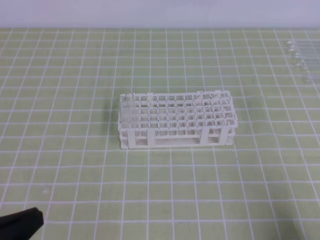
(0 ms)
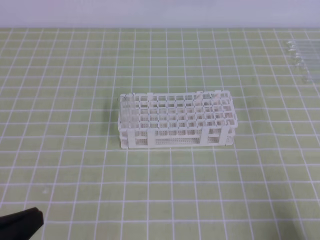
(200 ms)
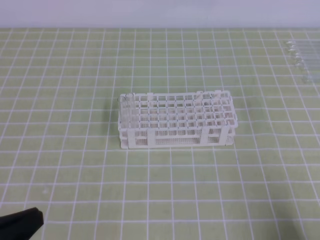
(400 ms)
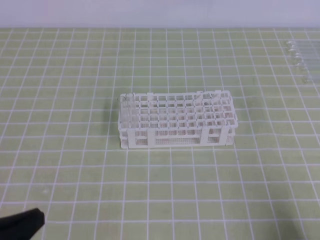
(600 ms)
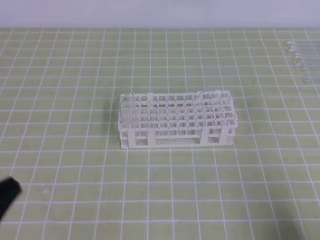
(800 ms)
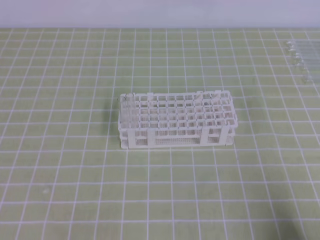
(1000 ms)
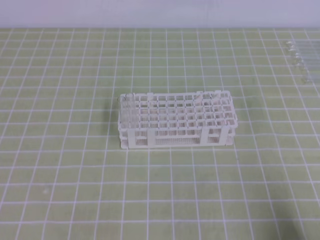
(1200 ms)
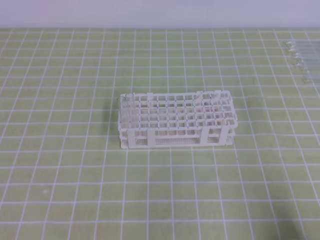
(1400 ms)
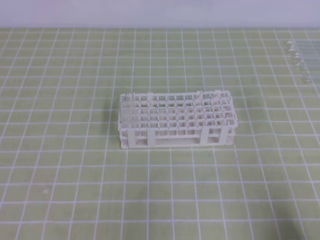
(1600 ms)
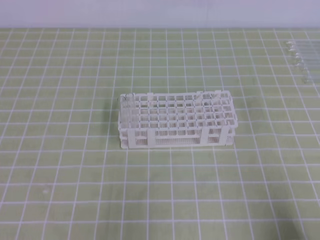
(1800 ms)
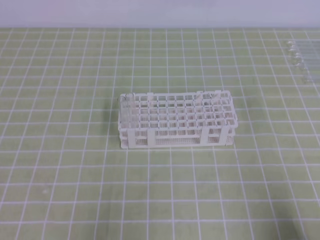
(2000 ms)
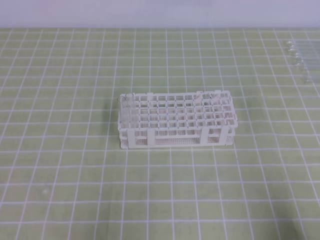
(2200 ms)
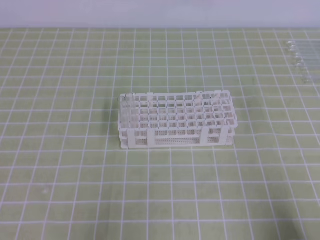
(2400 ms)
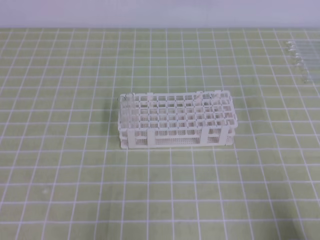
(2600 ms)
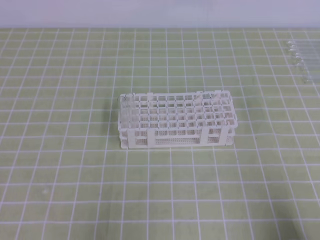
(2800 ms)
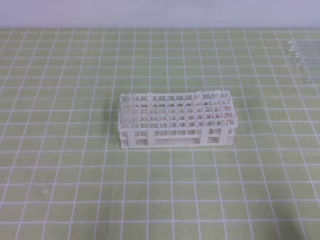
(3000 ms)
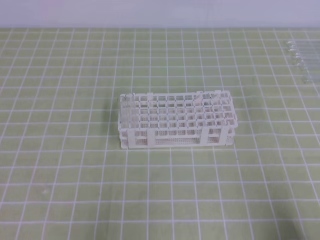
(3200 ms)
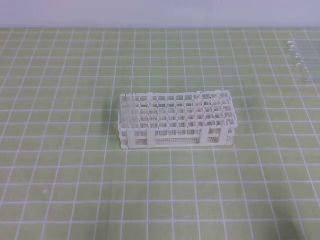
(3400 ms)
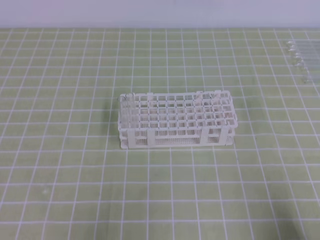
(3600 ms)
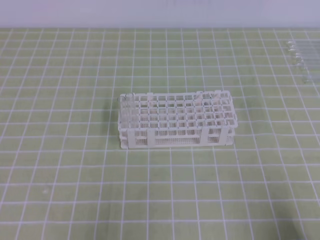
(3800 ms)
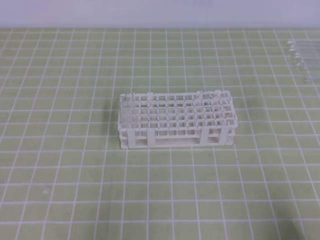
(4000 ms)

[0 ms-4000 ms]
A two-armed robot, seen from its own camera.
2600 ms to 4000 ms: Neither gripper changes place.

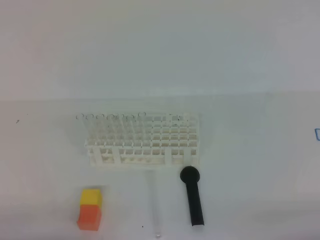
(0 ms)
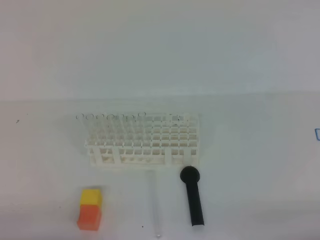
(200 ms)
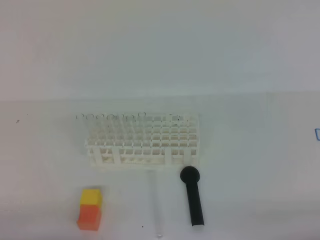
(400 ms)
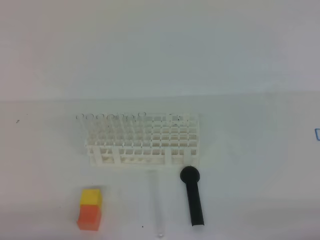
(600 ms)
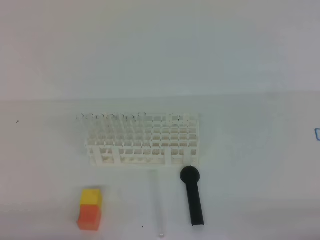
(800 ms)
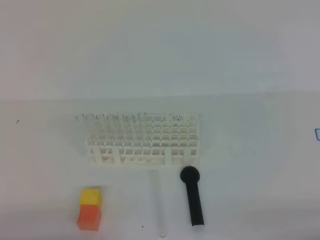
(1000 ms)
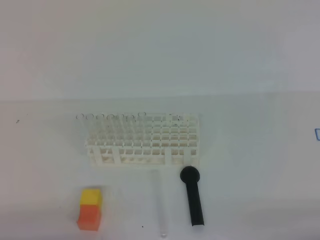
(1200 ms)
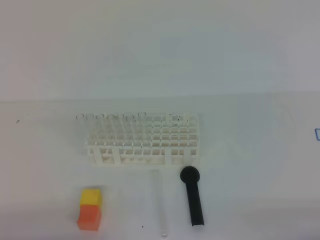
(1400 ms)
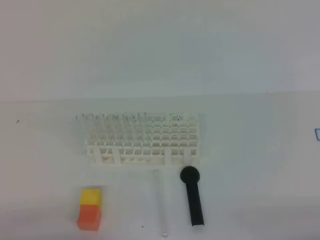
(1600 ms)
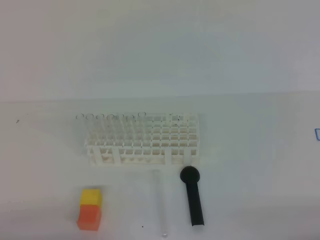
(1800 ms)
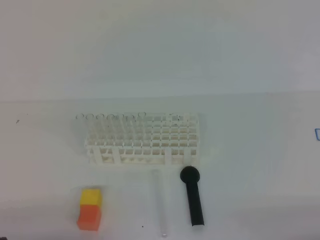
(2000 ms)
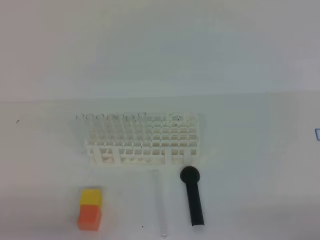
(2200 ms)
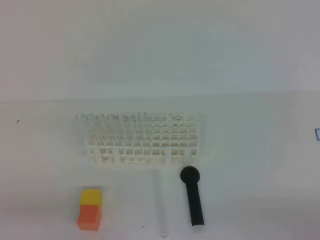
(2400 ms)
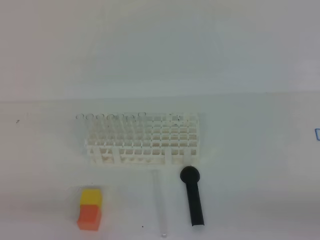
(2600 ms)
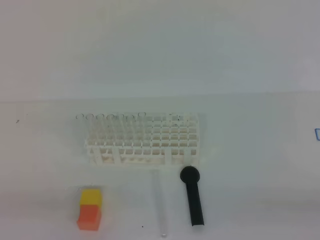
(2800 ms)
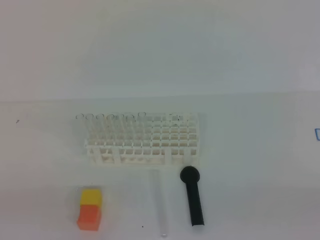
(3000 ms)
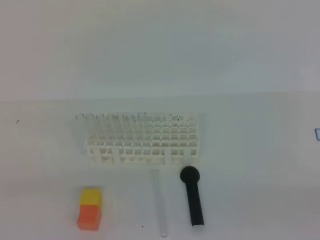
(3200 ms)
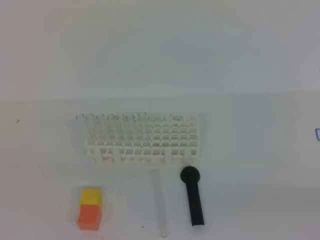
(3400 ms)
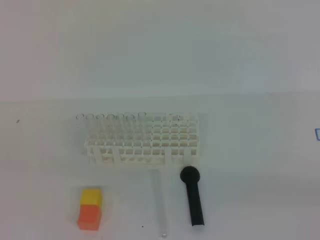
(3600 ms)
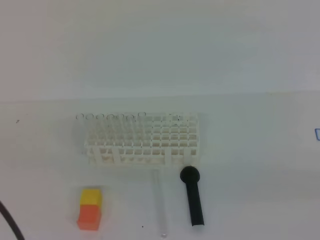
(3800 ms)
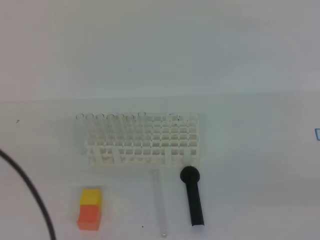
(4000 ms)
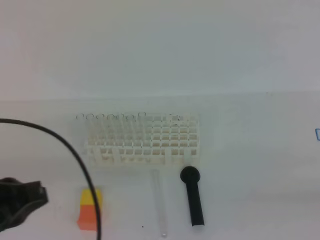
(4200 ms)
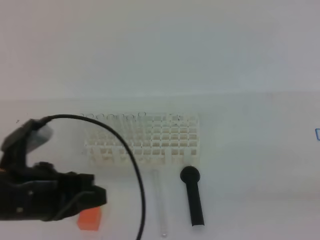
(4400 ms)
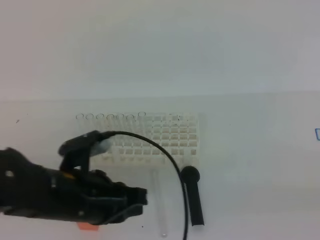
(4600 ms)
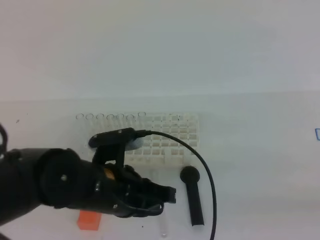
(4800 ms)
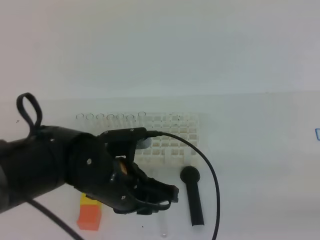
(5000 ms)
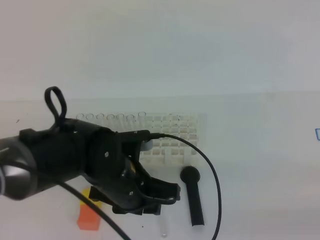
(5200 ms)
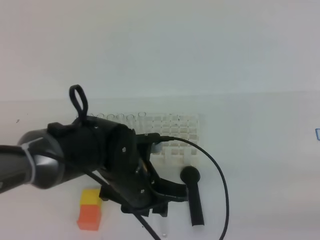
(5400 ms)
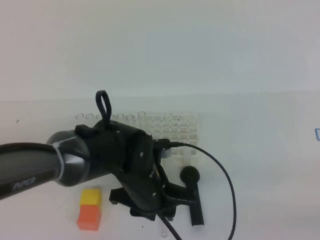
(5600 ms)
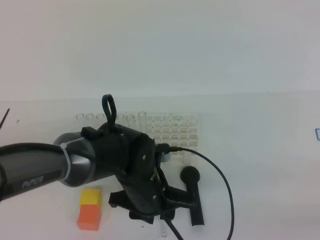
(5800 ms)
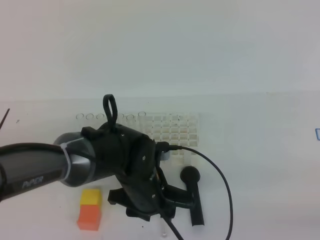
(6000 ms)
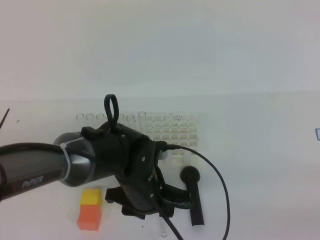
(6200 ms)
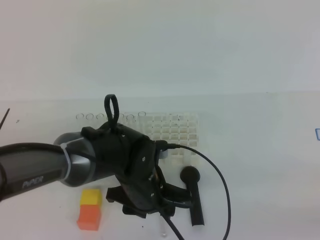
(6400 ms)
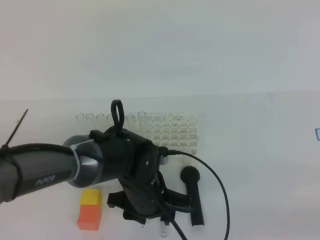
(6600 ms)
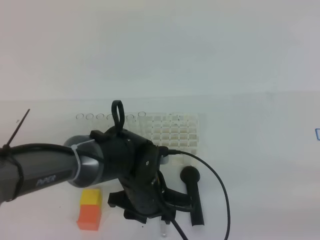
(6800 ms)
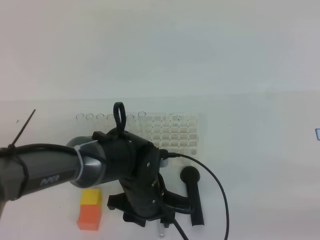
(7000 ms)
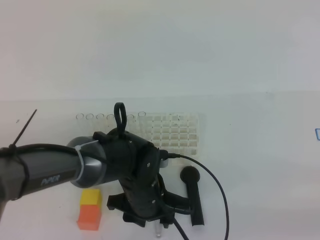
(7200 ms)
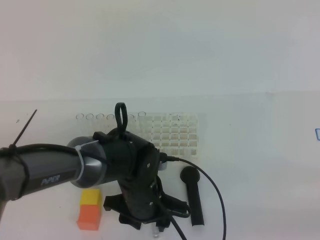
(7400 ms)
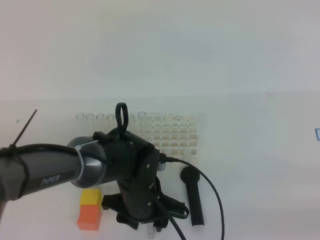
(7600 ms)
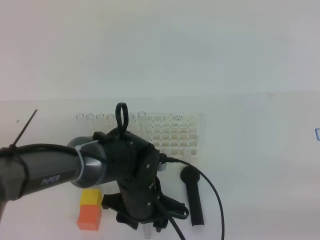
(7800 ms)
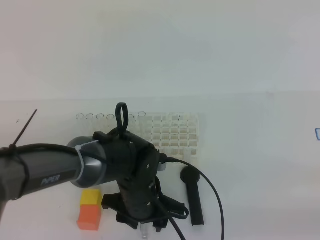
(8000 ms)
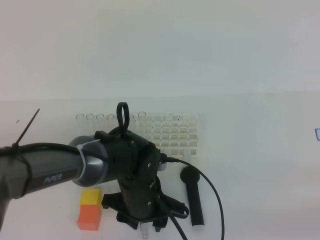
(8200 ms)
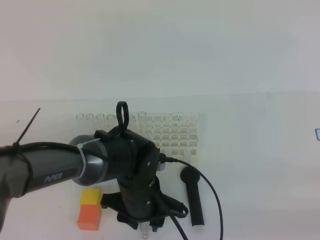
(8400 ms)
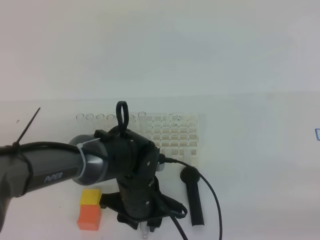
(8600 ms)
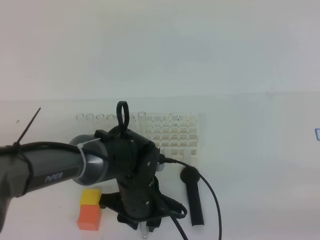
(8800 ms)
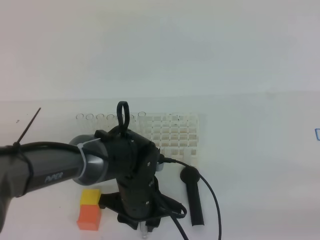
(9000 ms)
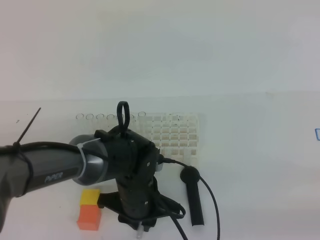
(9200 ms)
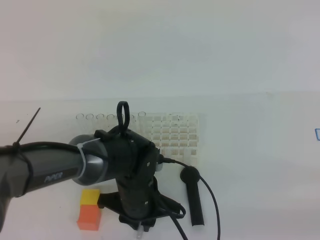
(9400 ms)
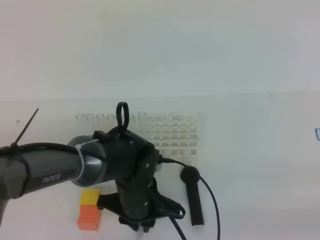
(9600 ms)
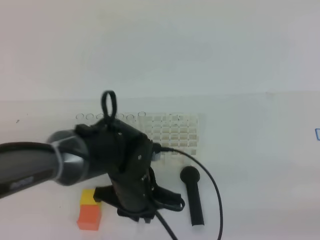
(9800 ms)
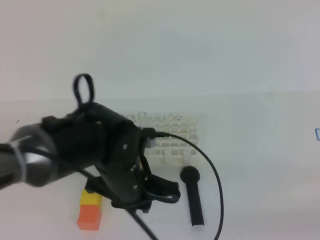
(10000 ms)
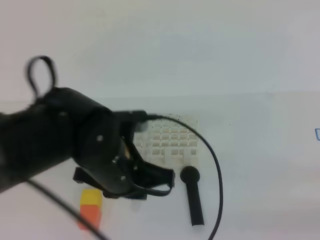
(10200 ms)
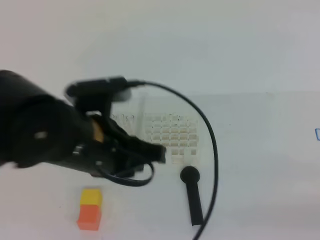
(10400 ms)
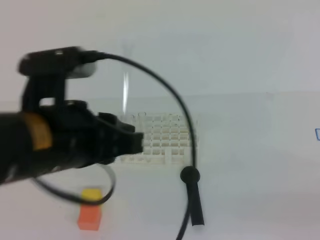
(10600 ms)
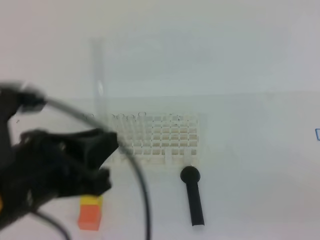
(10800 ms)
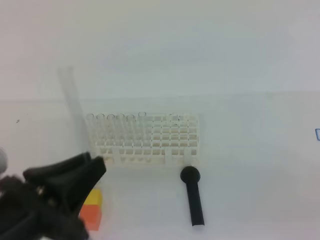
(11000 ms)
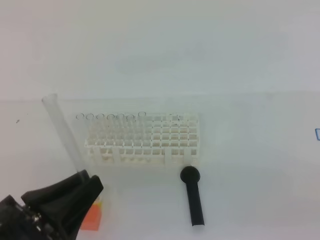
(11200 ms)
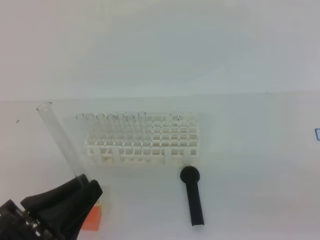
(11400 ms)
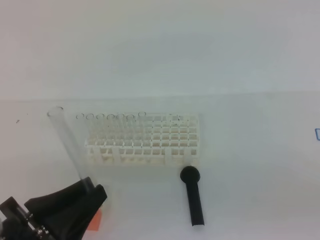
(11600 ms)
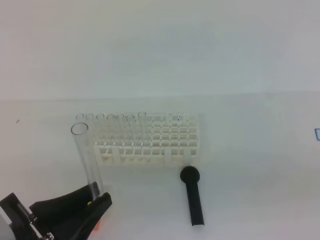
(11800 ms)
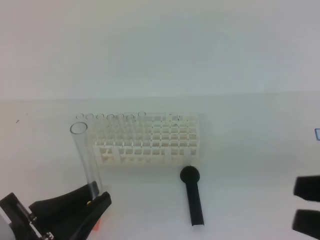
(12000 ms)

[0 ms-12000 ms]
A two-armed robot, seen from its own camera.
3000 ms to 4400 ms: The right gripper travels upward by some 5 cm. Meanwhile the left gripper heads forward and to the right, covering approximately 15 cm.
4400 ms to 6000 ms: The left gripper goes roughly 20 cm to the right, downward and forward, and opens its fingers; the right gripper opens up.
6000 ms to 7600 ms: The grippers move only a little.
7600 ms to 9000 ms: The left gripper closes up.
9000 ms to 10400 ms: The left gripper is displaced upward by roughly 20 cm, and closes.
10400 ms to 12000 ms: The right gripper goes approximately 10 cm to the left and upward, while the left gripper heads backward, to the left and downward, covering roughly 15 cm.

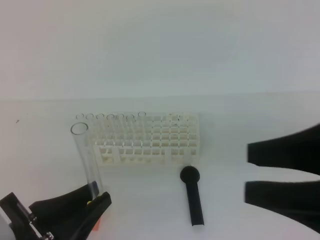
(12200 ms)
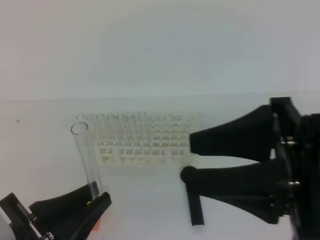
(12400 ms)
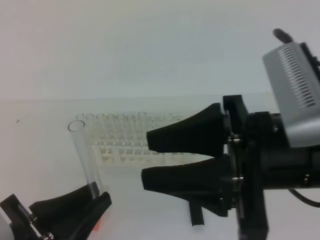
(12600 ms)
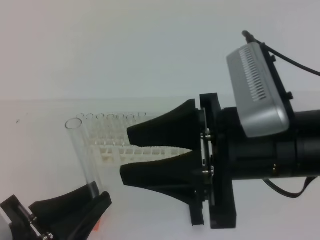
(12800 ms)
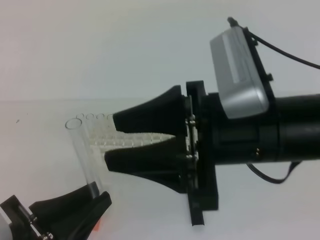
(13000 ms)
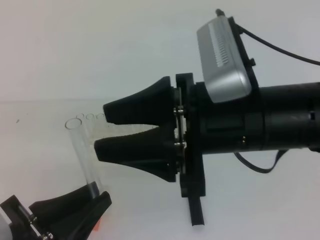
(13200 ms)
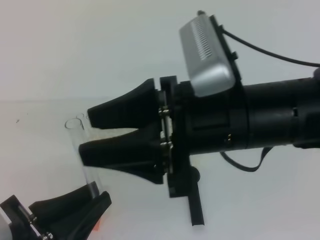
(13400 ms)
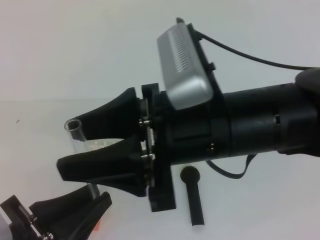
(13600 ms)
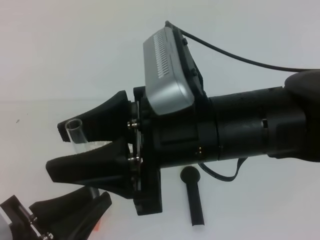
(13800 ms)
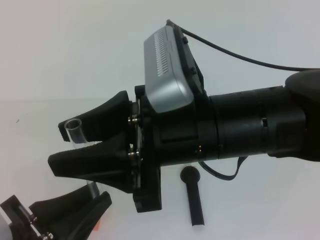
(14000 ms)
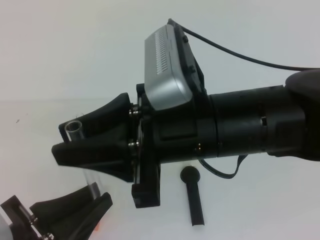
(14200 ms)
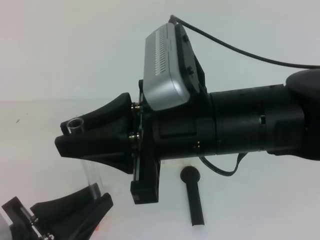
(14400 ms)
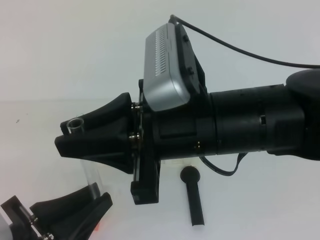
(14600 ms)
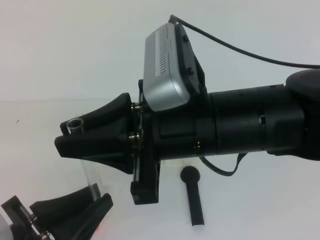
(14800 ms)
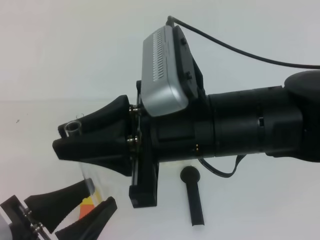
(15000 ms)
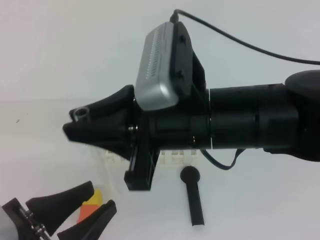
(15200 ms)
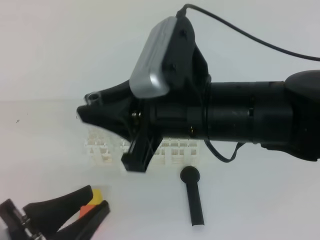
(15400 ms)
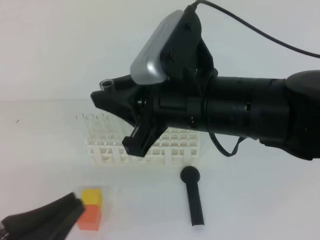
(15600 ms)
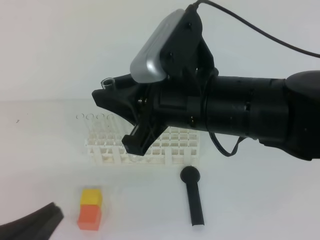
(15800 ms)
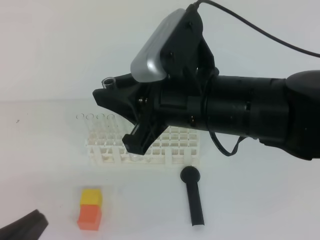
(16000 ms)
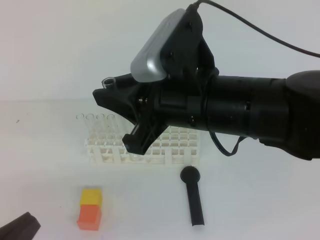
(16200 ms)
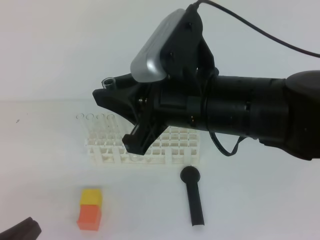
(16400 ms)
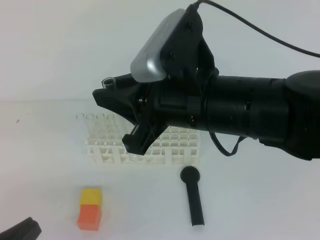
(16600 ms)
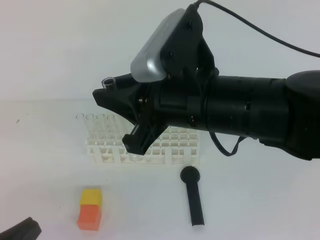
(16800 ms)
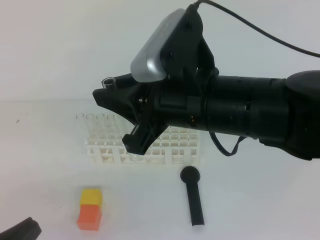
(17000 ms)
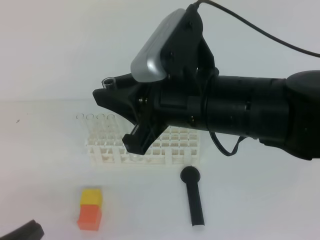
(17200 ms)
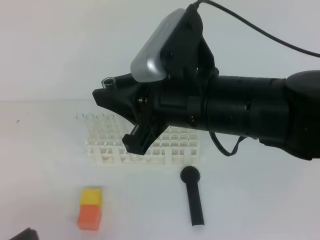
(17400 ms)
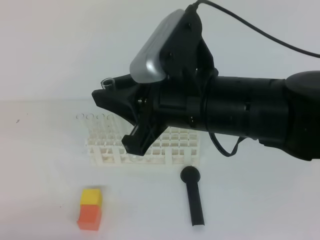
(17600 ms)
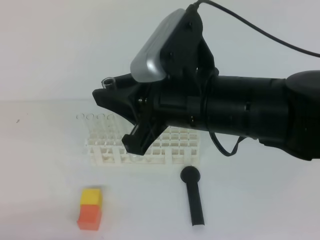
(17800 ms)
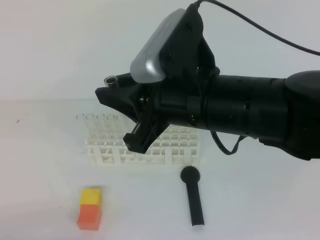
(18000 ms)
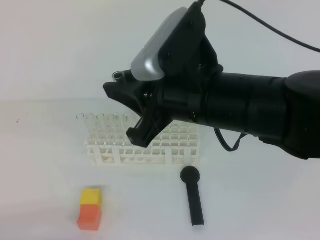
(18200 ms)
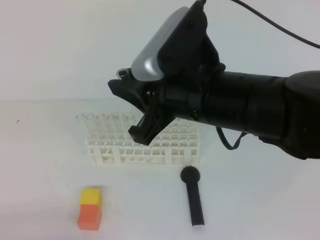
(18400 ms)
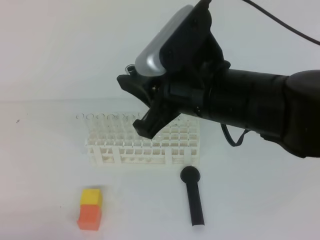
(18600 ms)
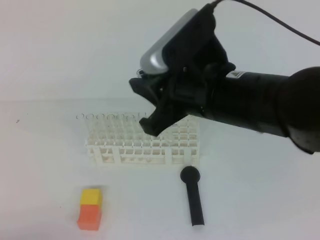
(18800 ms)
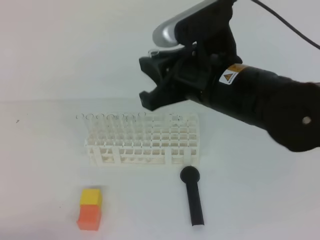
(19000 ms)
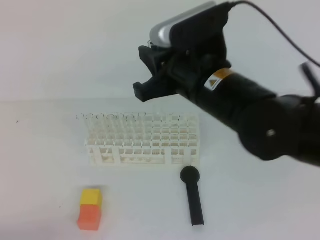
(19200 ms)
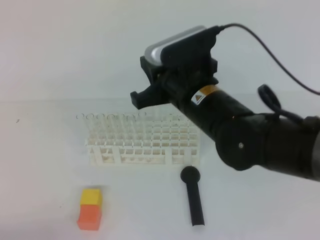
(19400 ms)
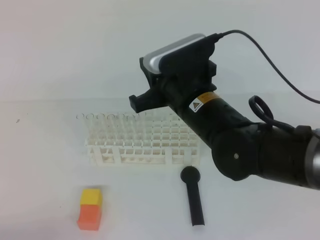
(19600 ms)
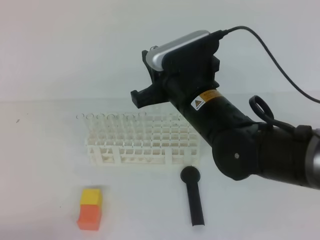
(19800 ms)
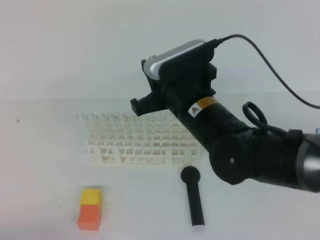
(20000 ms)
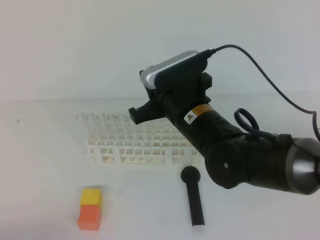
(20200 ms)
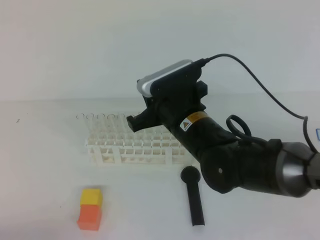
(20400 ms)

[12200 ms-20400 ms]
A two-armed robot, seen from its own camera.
12200 ms to 13800 ms: The right gripper heads to the left and forward, covering roughly 20 cm.
13800 ms to 15400 ms: The left gripper opens up; the right gripper closes up.
15400 ms to 17200 ms: The left gripper moves to the left, about 5 cm, and closes its fingers.
17200 ms to 18800 ms: The left gripper goes about 5 cm downward.
18800 ms to 20400 ms: The right gripper moves downward and forward, some 10 cm.
